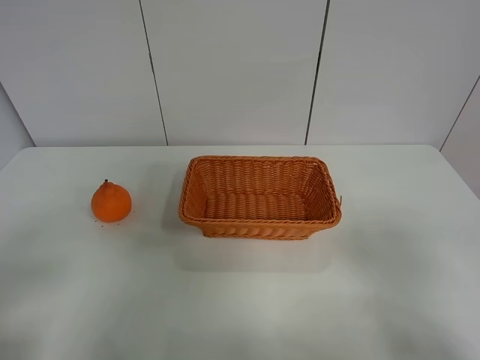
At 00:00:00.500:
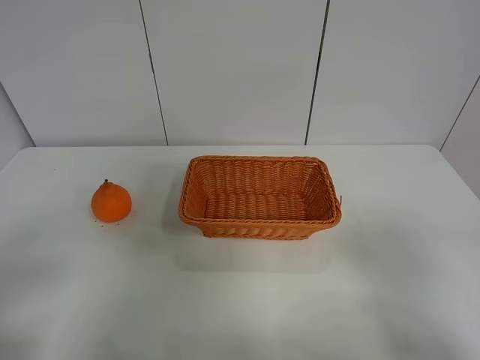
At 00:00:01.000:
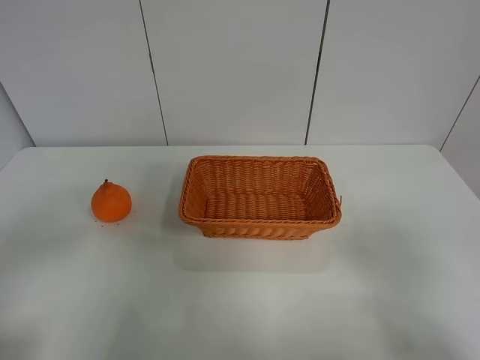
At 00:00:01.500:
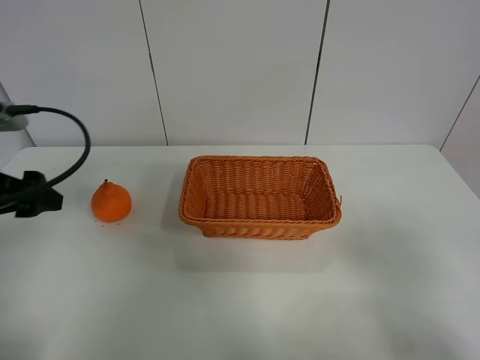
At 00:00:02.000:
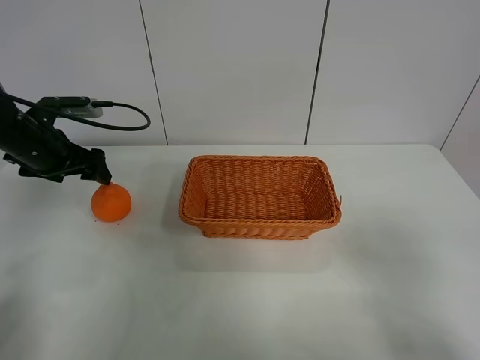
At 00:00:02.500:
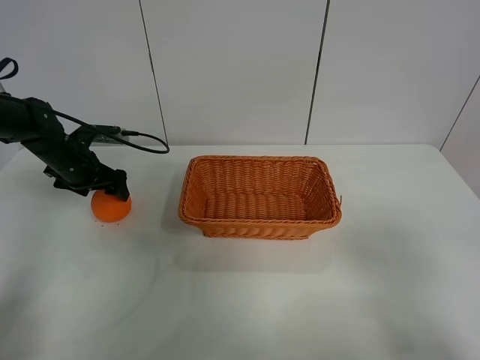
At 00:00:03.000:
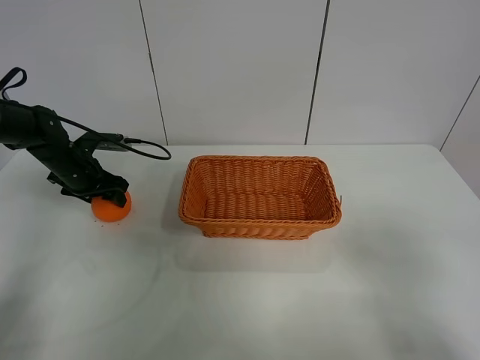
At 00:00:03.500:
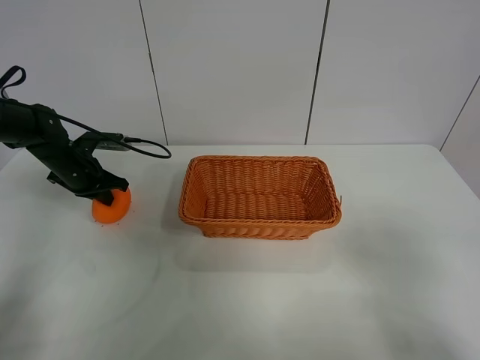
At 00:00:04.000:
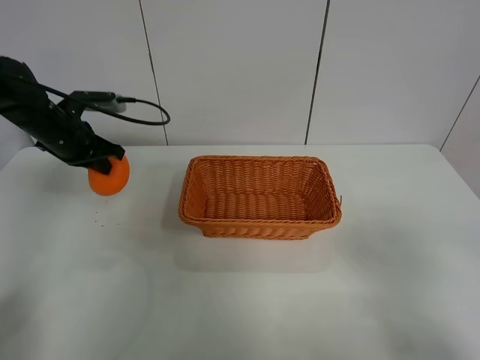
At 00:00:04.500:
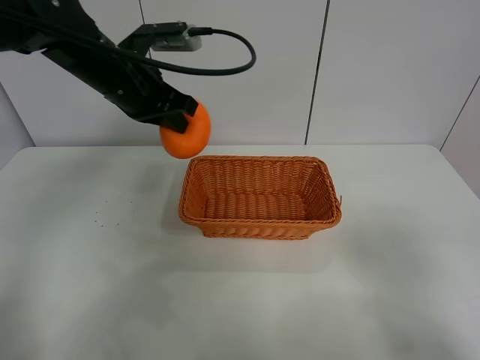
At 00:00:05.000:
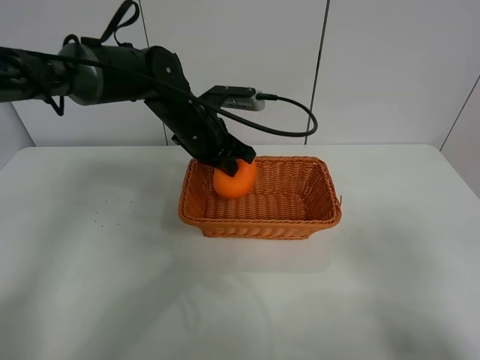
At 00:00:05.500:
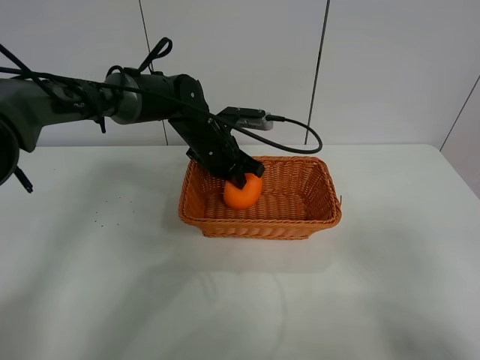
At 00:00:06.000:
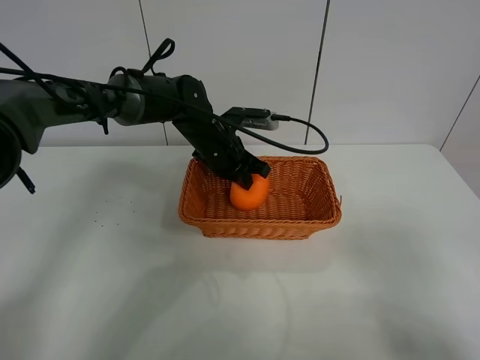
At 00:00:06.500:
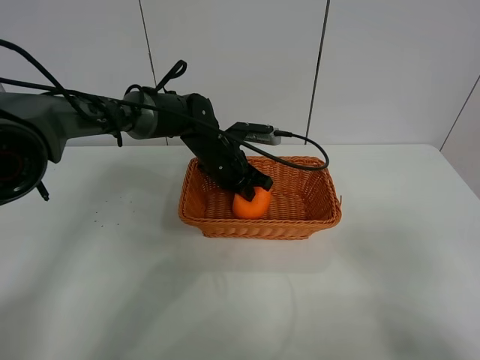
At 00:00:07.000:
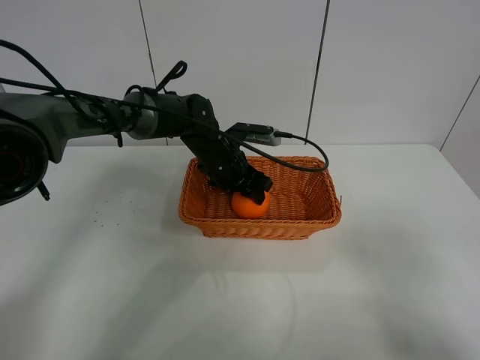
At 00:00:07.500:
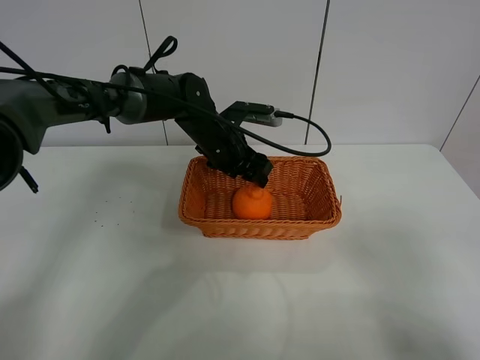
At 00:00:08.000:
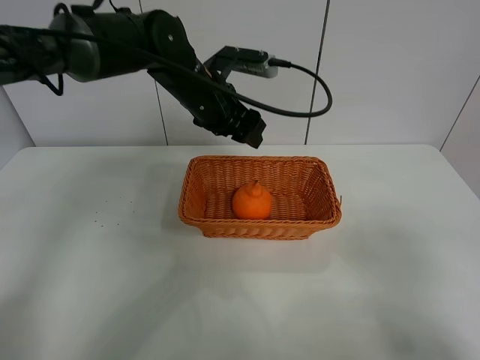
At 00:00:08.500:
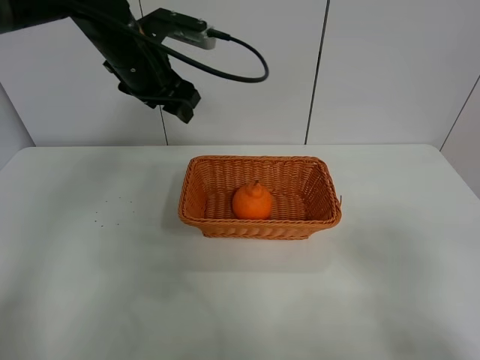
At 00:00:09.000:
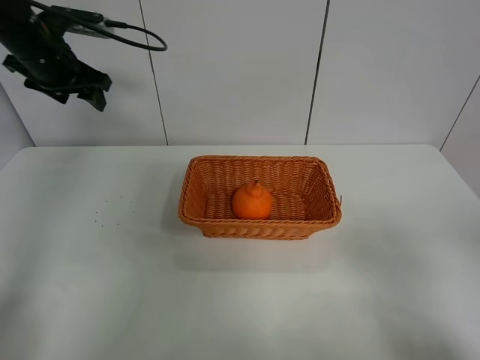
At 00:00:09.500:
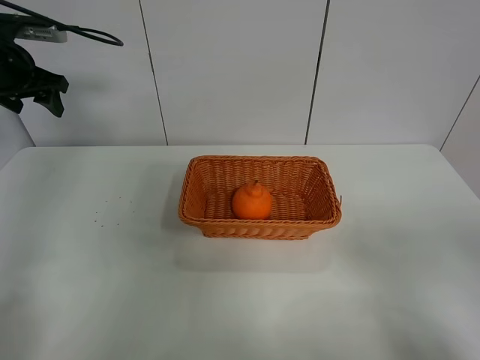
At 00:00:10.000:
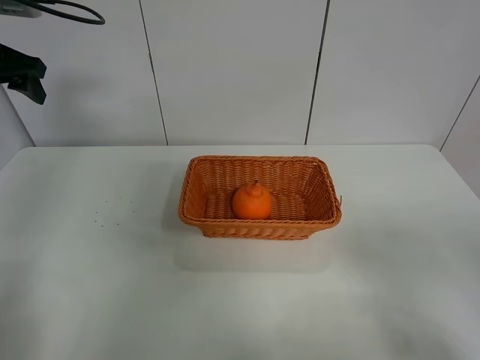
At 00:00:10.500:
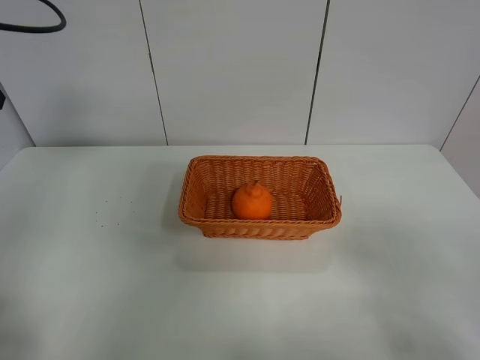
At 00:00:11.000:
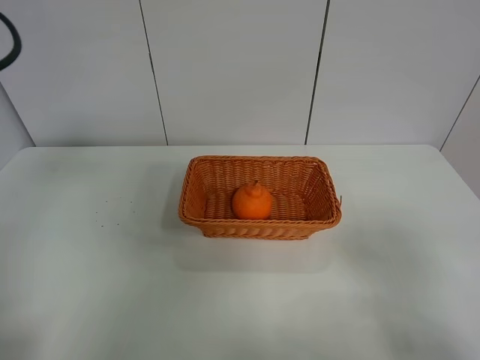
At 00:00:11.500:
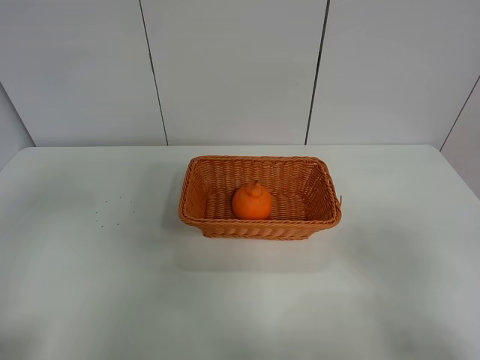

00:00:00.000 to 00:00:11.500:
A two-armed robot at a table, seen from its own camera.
Task of the whole recording: left gripper grabs oranges and puts them in the basket.
Step, 00:00:00.000 to 00:00:03.500: Grasp the orange with left gripper.
Step, 00:00:04.000 to 00:00:08.500: Place the orange in the basket with left gripper.
00:00:00.000 to 00:00:02.000: The left gripper shifts roughly 35 cm forward.
00:00:02.000 to 00:00:04.000: The left gripper reaches about 10 cm downward, then returns, and closes up.
00:00:04.000 to 00:00:06.000: The left gripper travels to the right by some 25 cm.
00:00:06.000 to 00:00:07.500: The left gripper opens up.
00:00:07.500 to 00:00:09.500: The left gripper heads to the left and upward, covering about 35 cm.
00:00:09.500 to 00:00:11.500: The left gripper heads backward, covering some 35 cm.
